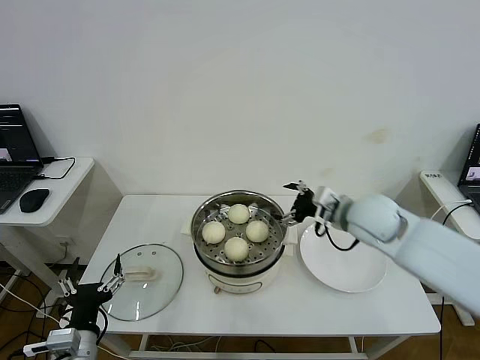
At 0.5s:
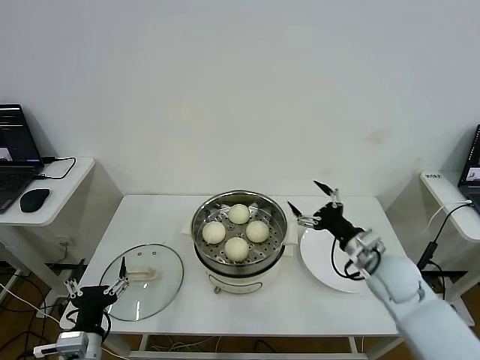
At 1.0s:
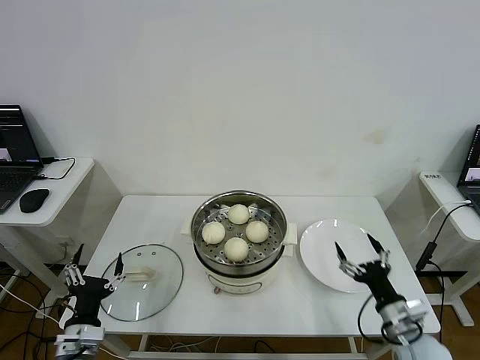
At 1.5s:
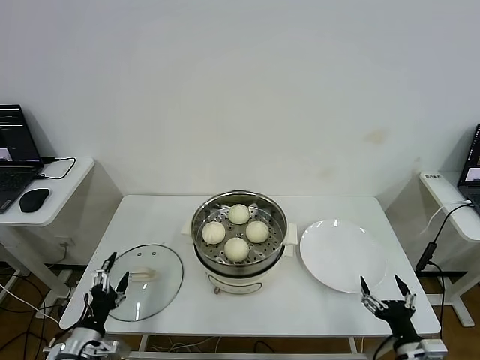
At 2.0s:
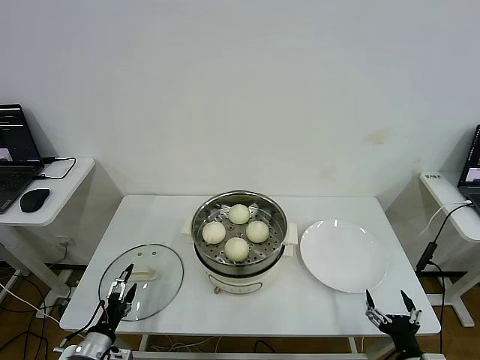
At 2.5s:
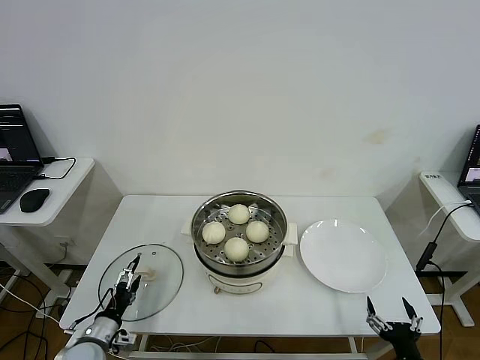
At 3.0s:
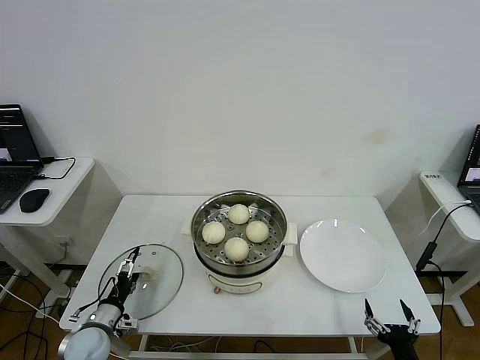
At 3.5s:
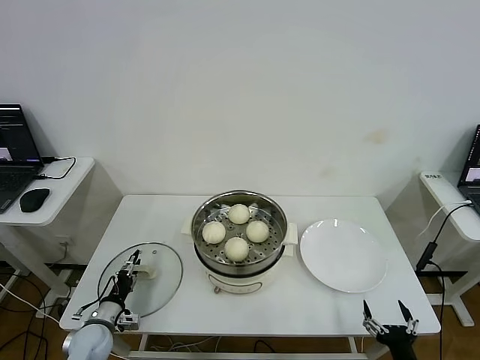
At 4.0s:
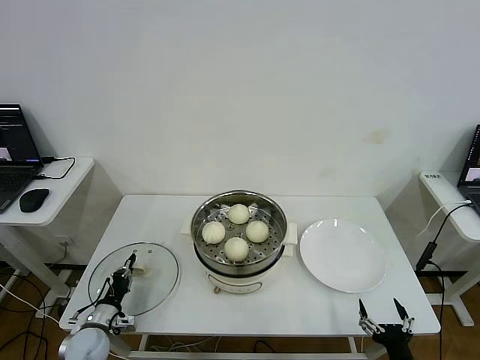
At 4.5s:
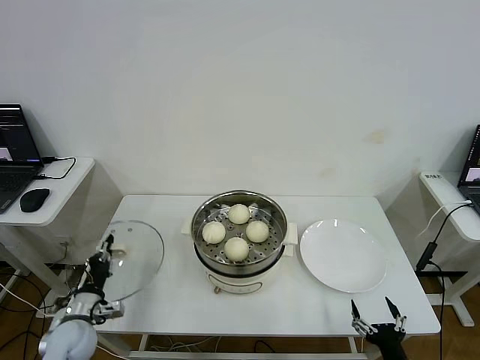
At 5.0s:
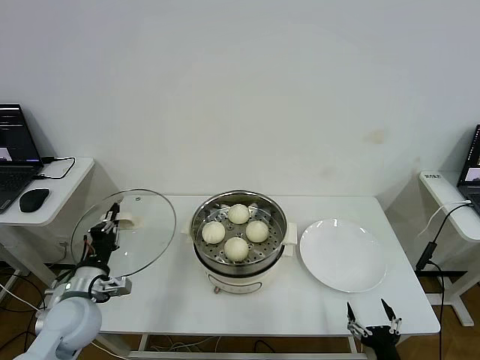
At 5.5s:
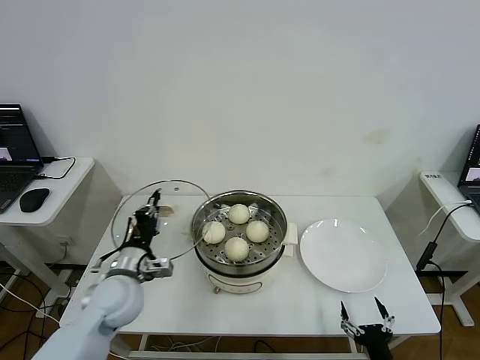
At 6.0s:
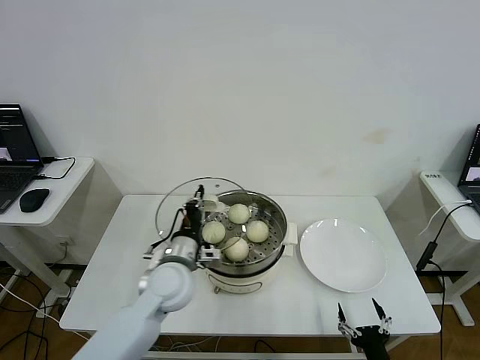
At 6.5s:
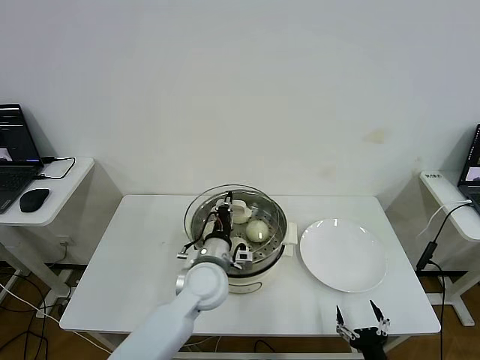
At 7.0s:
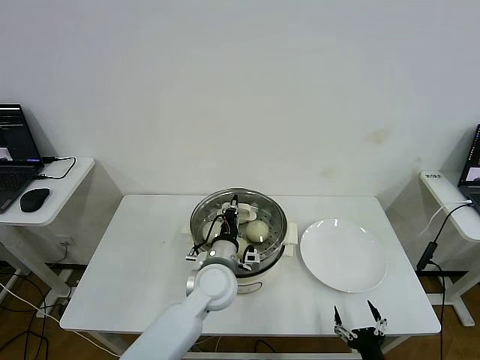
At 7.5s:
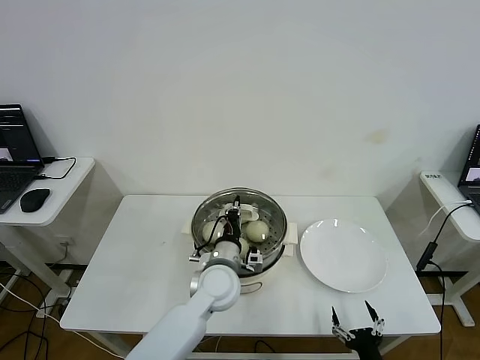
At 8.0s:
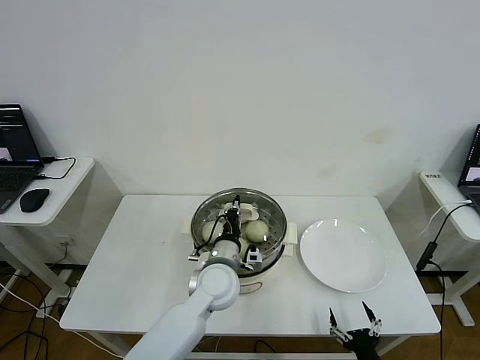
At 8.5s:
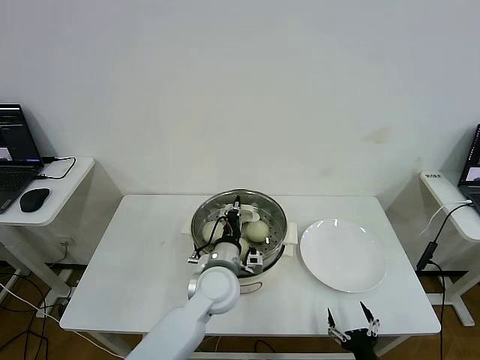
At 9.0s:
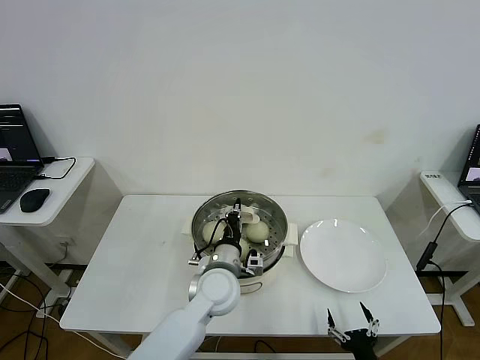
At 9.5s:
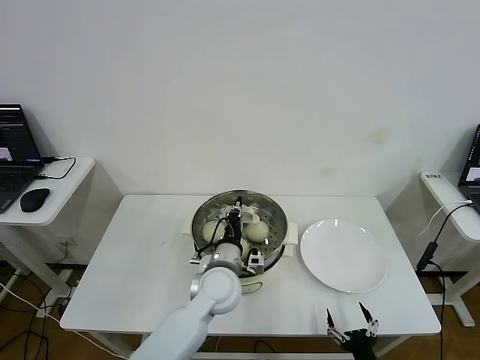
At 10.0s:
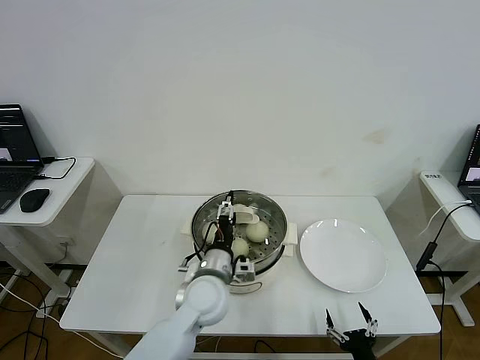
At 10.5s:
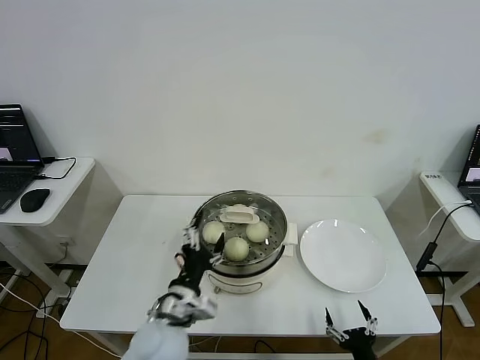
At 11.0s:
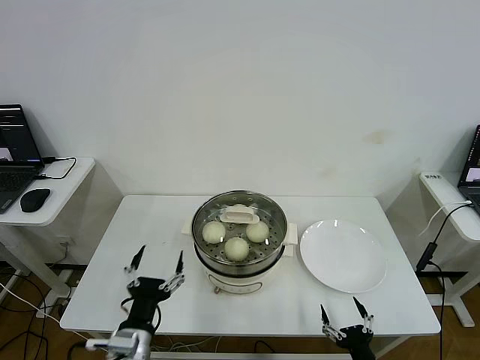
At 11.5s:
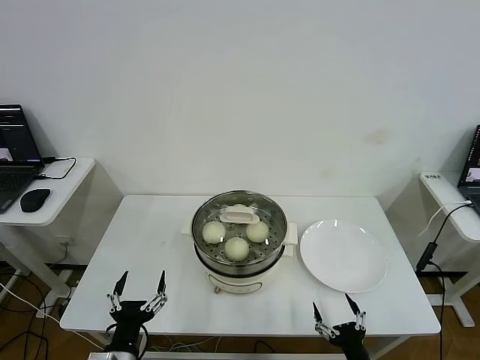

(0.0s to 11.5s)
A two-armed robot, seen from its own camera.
Step, 0.0s - 3.5s: Grasp the pot lid with left gripper.
Step, 4.5s - 9.5s: Place the pot lid on the steamer with left gripper.
0.0s - 2.0s: The right gripper moves backward and downward, roughly 35 cm, while the left gripper travels downward and to the left by approximately 10 cm.
2.0s - 4.0s: The left gripper heads forward and downward, covering roughly 10 cm, and closes up.
4.0s - 6.0s: The left gripper shifts about 30 cm to the right and upward.
6.0s - 7.5s: The left gripper moves to the right, about 10 cm.
7.5s - 9.5s: Both grippers stay about where they are.
9.5s - 11.5s: The left gripper goes some 30 cm backward and to the left, and opens.

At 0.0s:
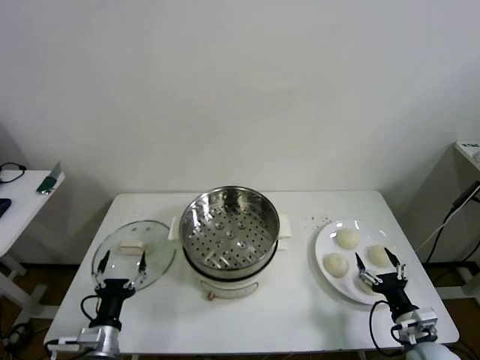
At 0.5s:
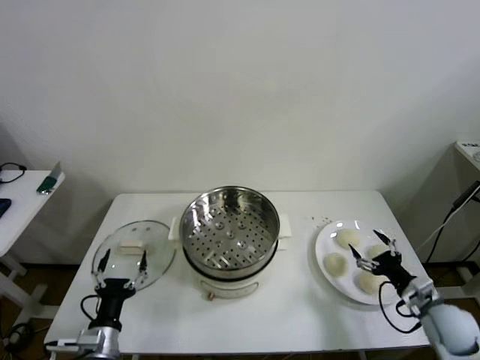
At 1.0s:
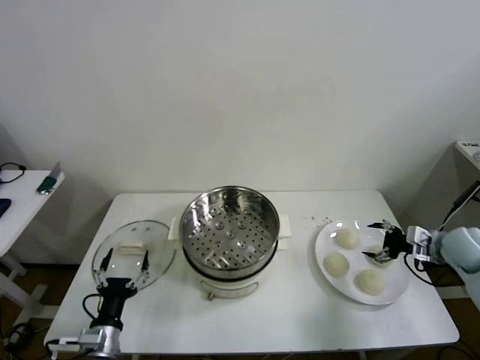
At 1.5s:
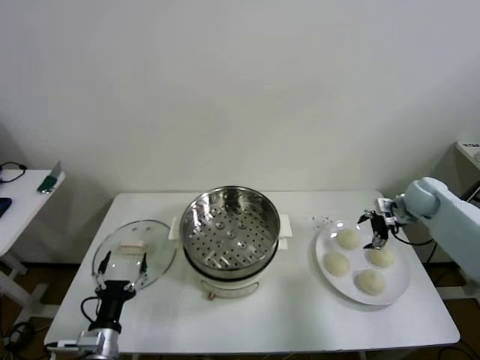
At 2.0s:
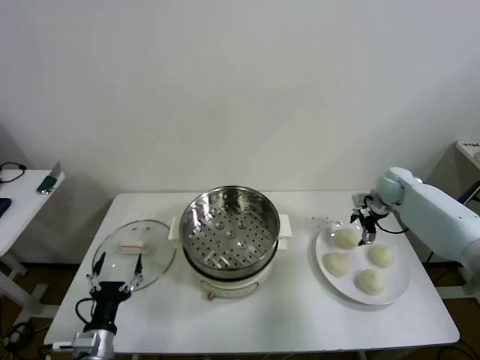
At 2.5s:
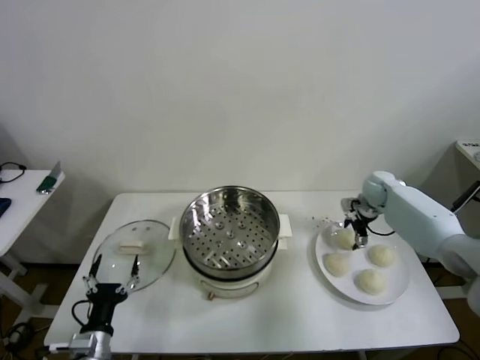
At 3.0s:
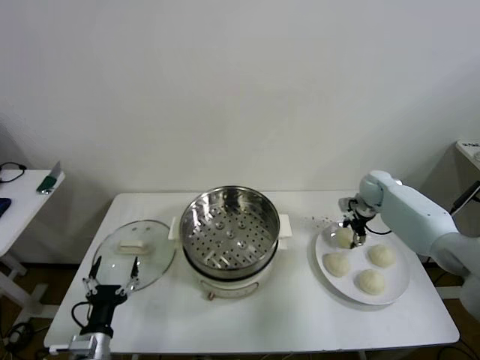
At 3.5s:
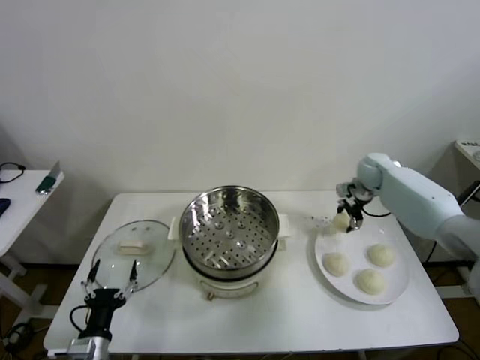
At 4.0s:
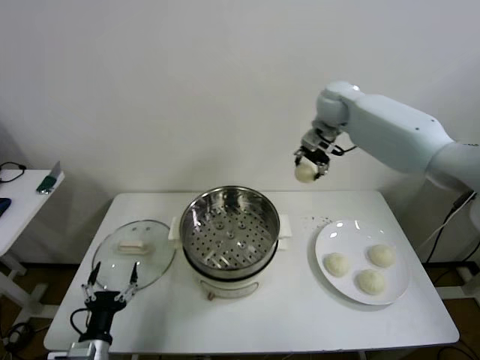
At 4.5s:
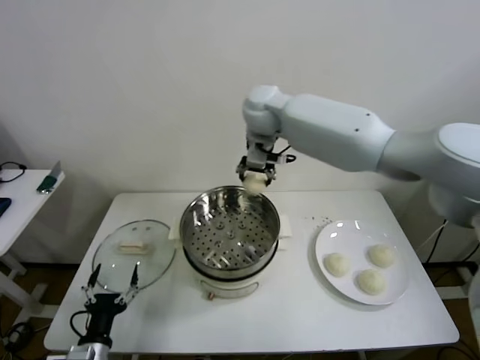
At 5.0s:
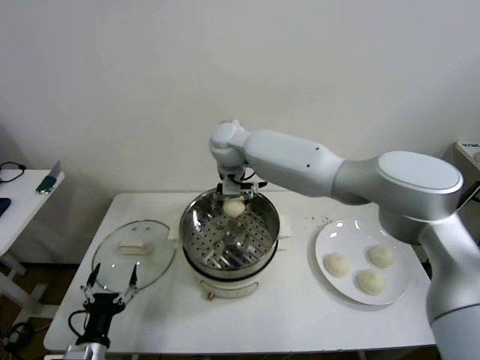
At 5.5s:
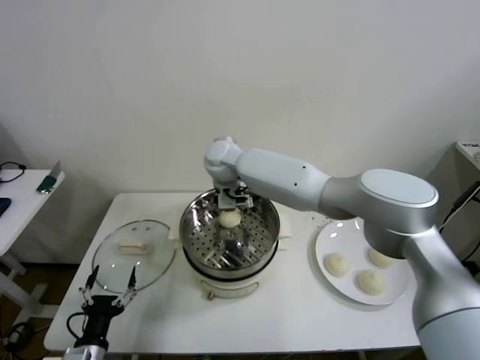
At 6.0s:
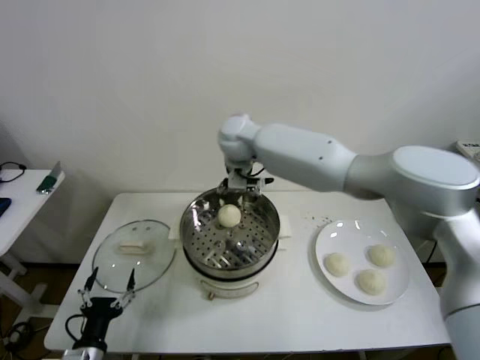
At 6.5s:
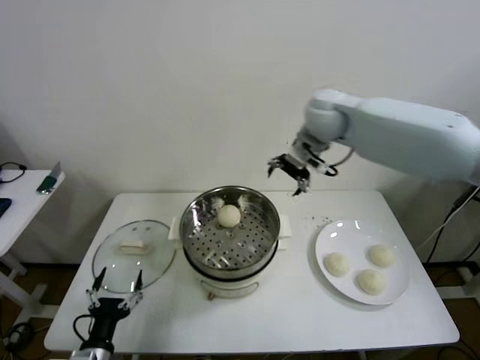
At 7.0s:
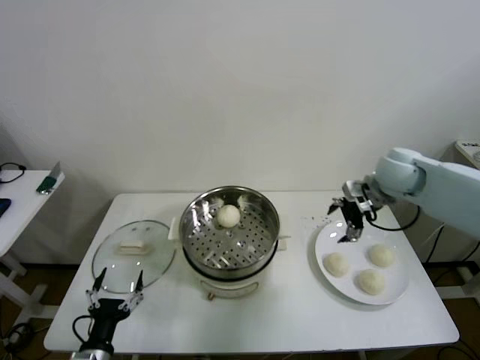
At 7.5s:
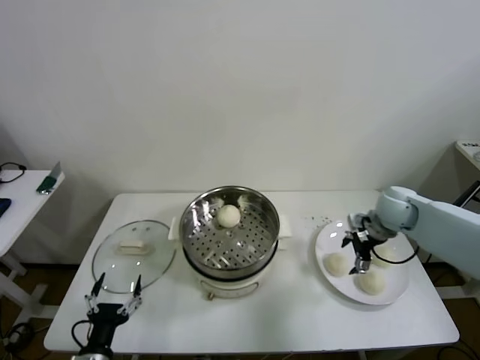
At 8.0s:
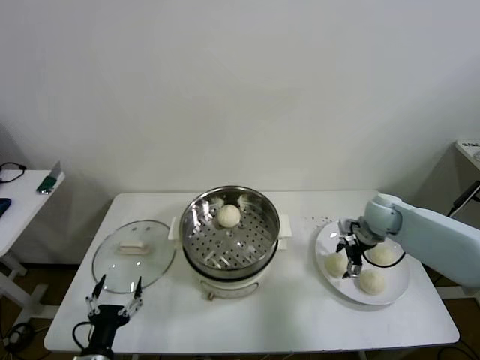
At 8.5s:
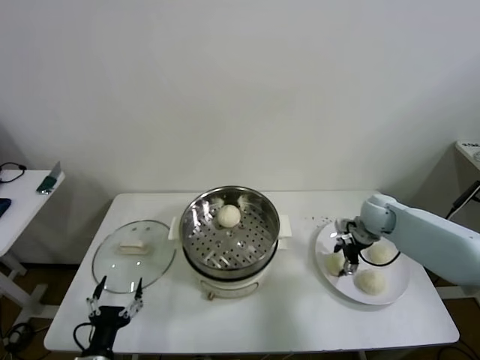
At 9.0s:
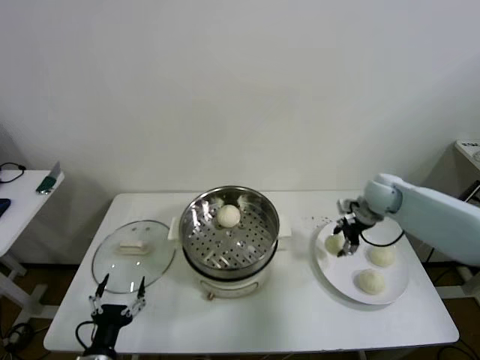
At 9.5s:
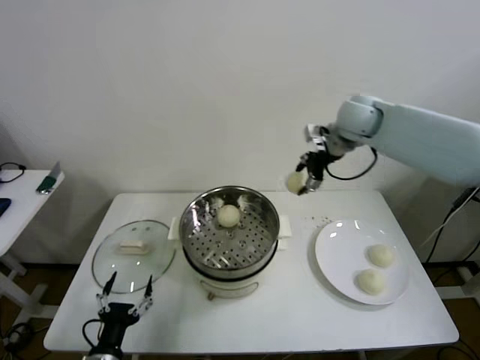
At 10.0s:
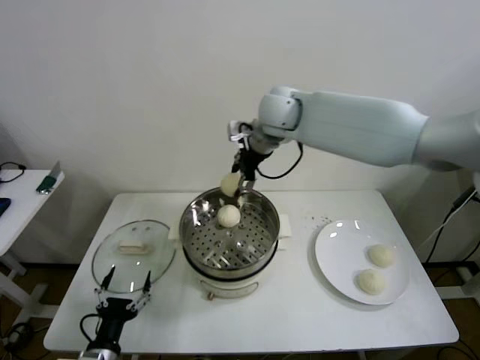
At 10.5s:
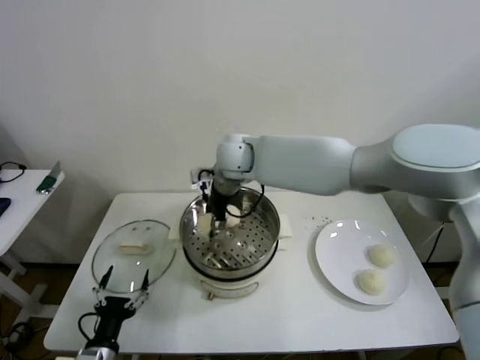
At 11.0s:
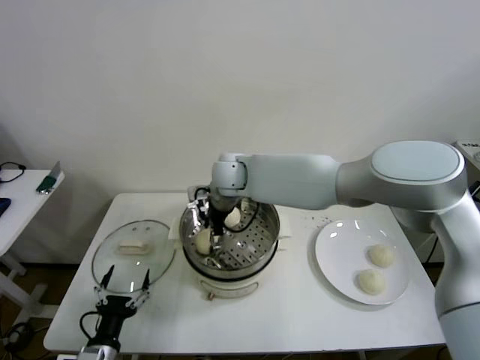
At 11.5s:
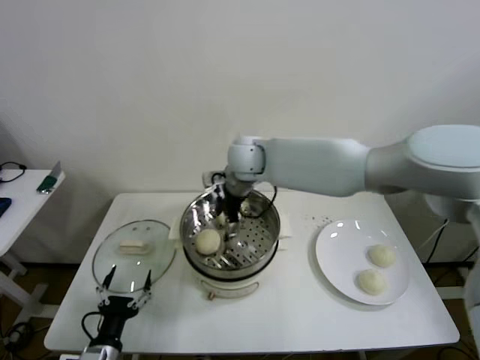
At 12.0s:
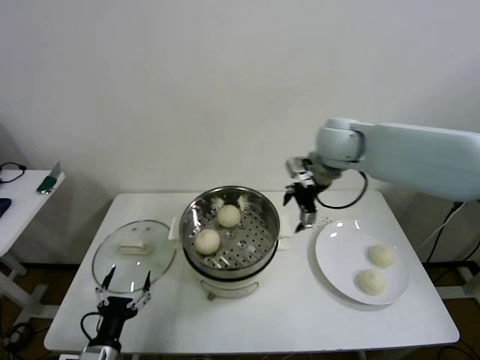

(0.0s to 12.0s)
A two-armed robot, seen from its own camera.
Step, 0.0s - 3.0s: Grasp the baozi in the plate with right gripper.
Step, 3.5s - 6.0s: Place the baozi on the steamer with right gripper.
Step, 6.5s - 8.5s: Grasp the baozi in the plate with right gripper.
Step, 9.0s - 11.5s: Place the baozi on the steamer with right gripper.
2.0s - 4.0s: The right gripper is displaced upward and to the left by some 35 cm, and closes up.
4.0s - 6.0s: The right gripper moves to the left, some 15 cm, and opens its fingers.
6.0s - 8.0s: The right gripper heads to the right and downward, covering about 40 cm.
8.0s - 10.0s: The right gripper goes approximately 40 cm to the left and upward, and closes its fingers.
10.0s - 12.0s: The right gripper goes approximately 15 cm to the right, and opens up.

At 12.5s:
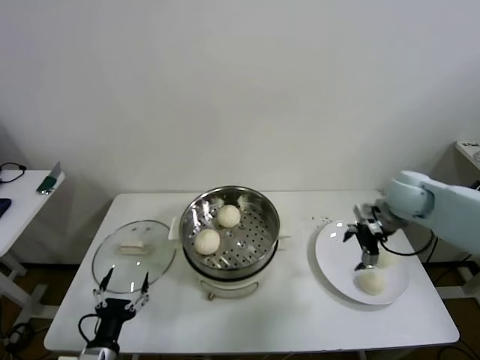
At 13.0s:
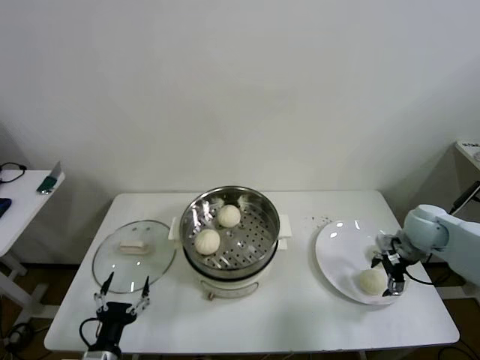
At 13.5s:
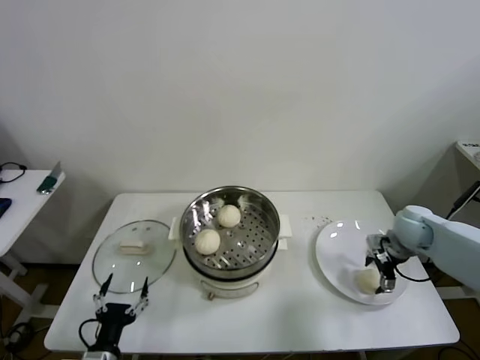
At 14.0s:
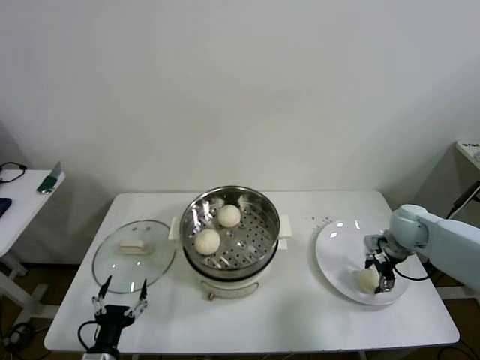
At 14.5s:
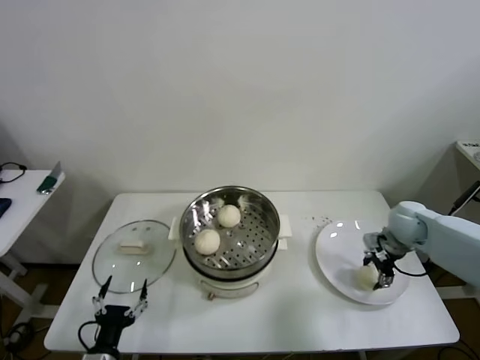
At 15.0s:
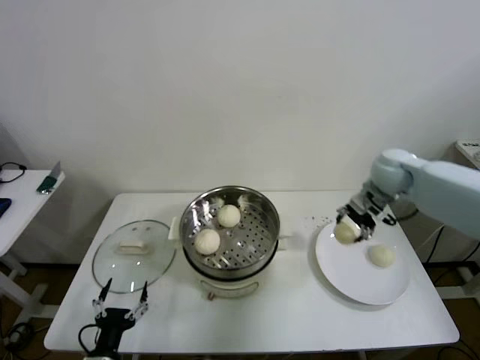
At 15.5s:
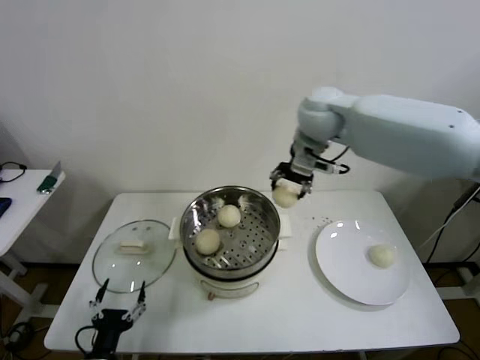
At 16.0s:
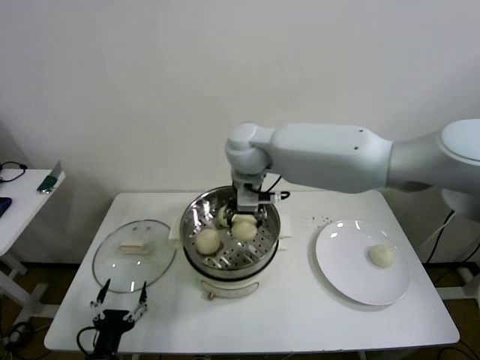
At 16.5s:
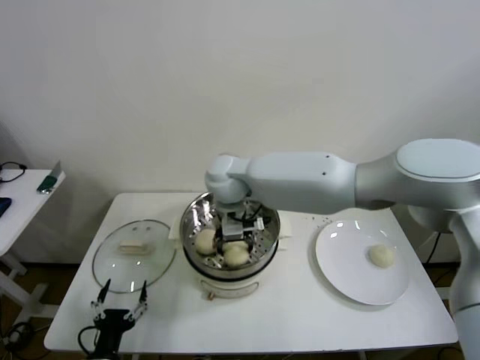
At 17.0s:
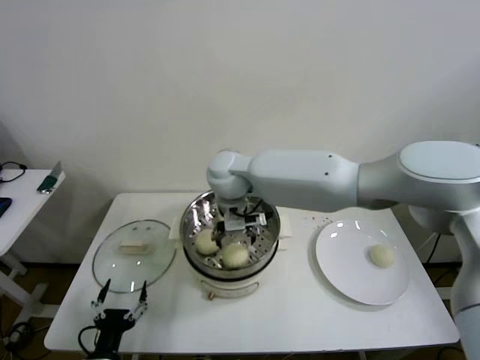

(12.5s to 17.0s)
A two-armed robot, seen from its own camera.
Step, 12.5s - 14.0s: Grasp the baozi in the plate with right gripper.
Step, 15.0s - 17.0s: Place the baozi on the steamer with right gripper.
12.5s - 14.5s: The right gripper travels downward by about 10 cm, and closes up.
14.5s - 17.0s: The right gripper moves to the left, roughly 40 cm, and opens.
